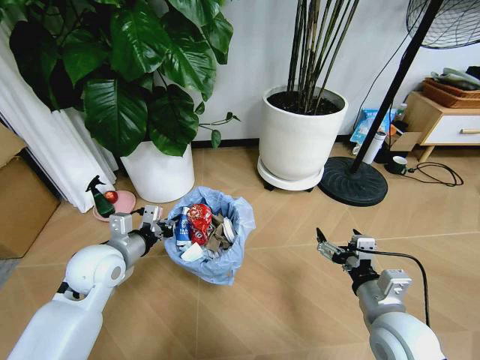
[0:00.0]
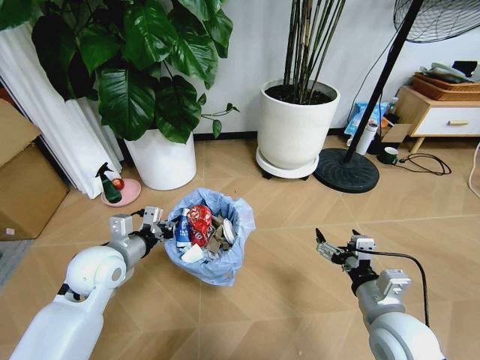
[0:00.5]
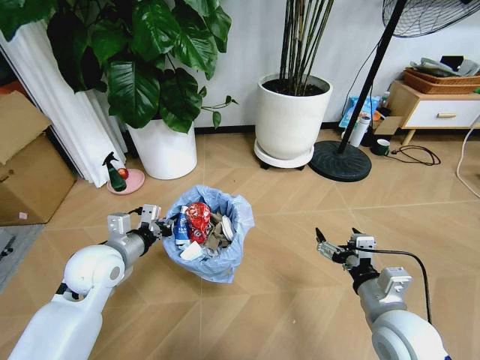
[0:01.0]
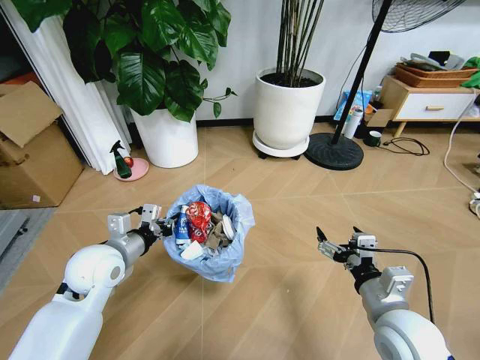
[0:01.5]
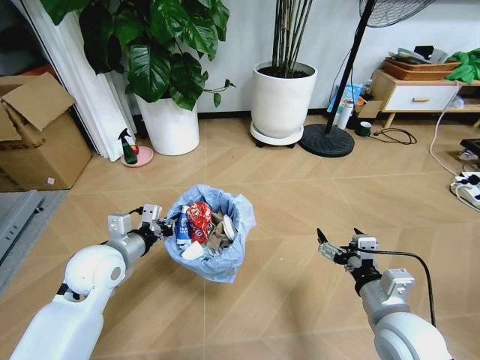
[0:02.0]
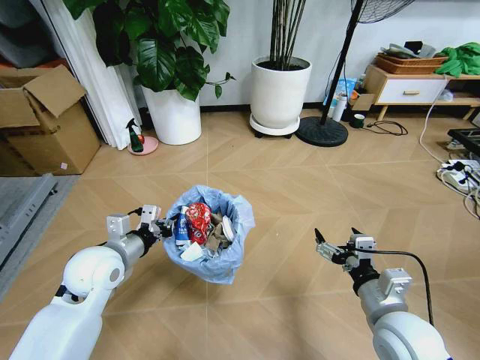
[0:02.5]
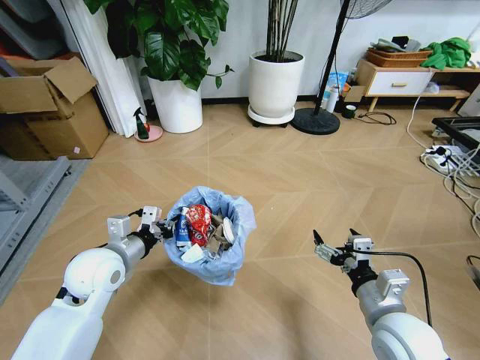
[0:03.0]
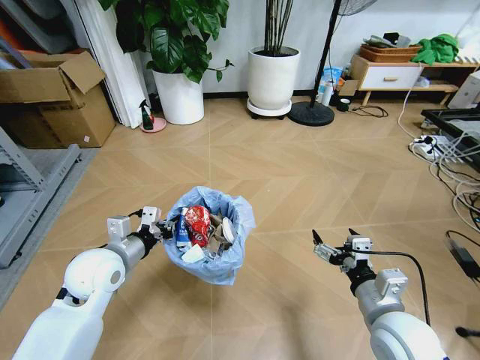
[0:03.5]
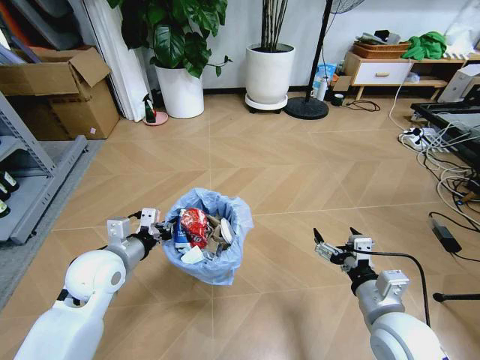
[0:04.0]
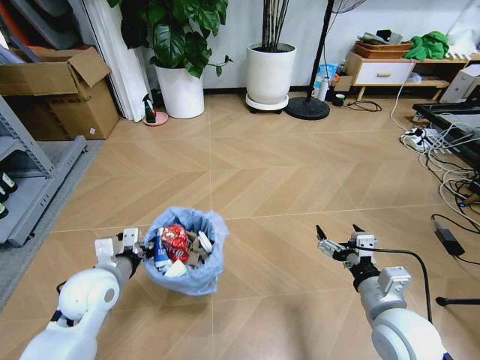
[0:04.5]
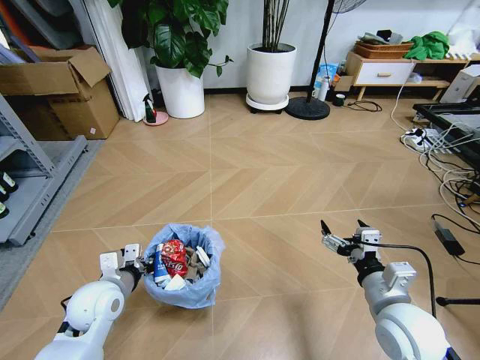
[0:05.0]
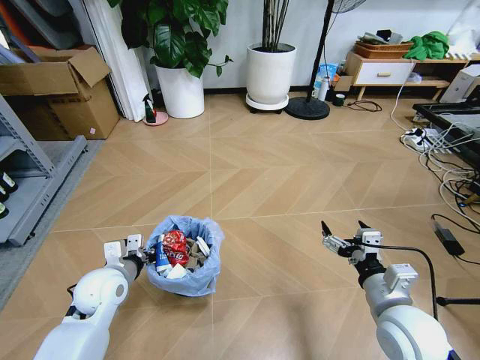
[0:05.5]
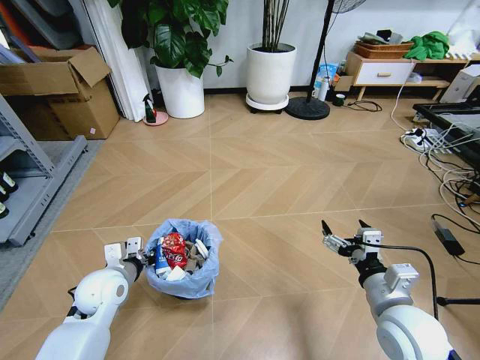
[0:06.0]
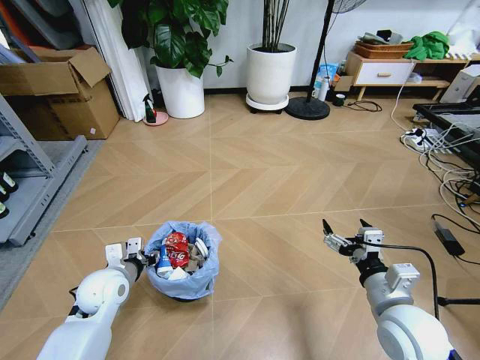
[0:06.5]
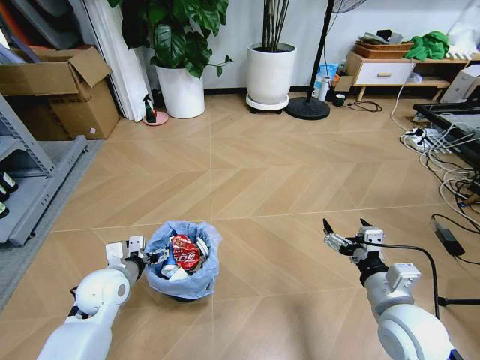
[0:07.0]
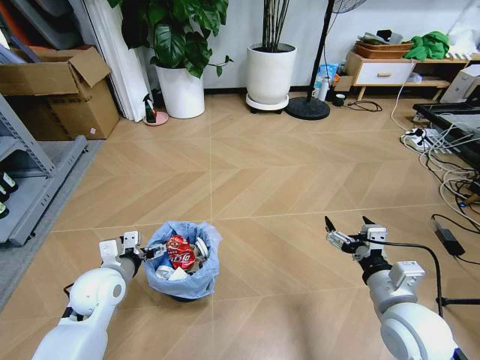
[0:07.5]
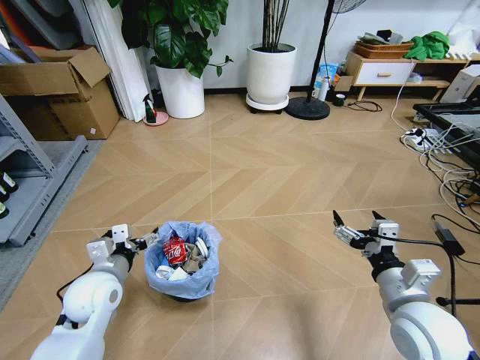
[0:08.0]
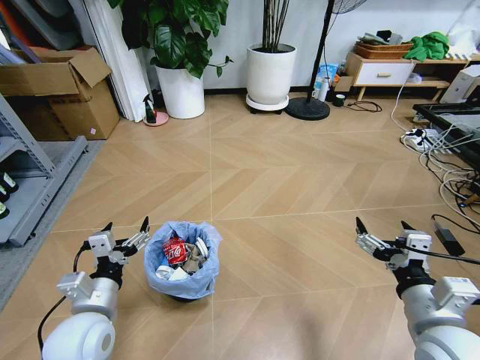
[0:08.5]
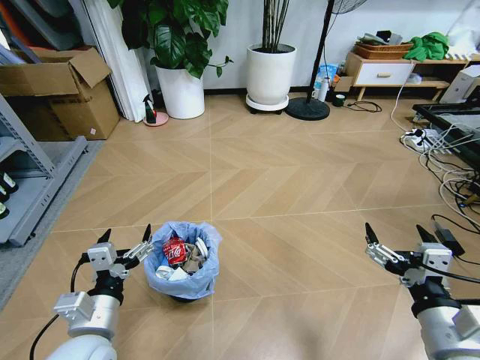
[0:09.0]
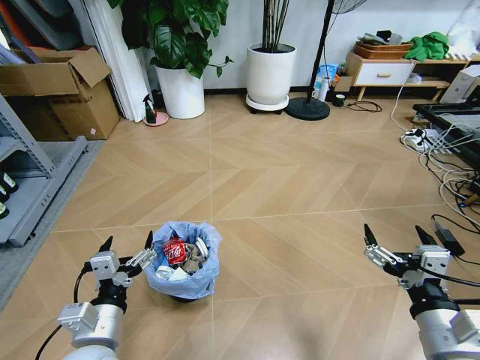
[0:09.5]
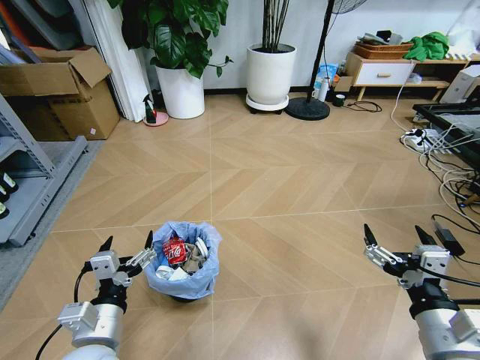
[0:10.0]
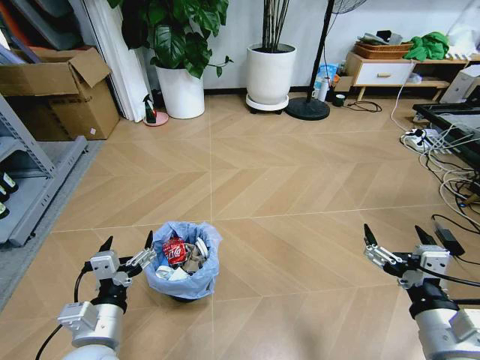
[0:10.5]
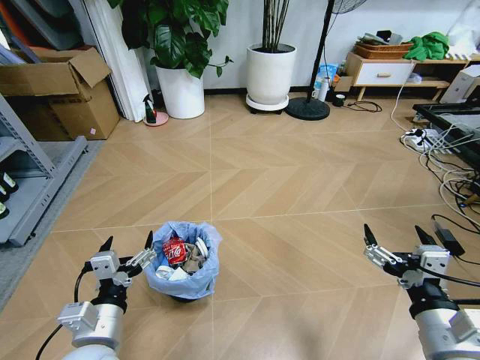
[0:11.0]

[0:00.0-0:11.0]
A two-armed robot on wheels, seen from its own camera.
Task of the whole recording: Pick up the trash bin and place the garbage on the floor into it.
0:03.5 to 0:05.5: The left gripper goes about 5 cm downward.
0:05.5 to 0:07.5: The left gripper opens its fingers.
0:07.5 to 0:09.0: The left gripper moves backward, about 15 cm. Meanwhile the right gripper moves backward and upward, some 10 cm.
0:09.0 to 0:11.0: The grippers move only a little.

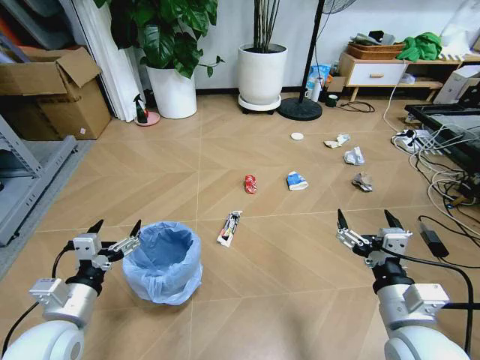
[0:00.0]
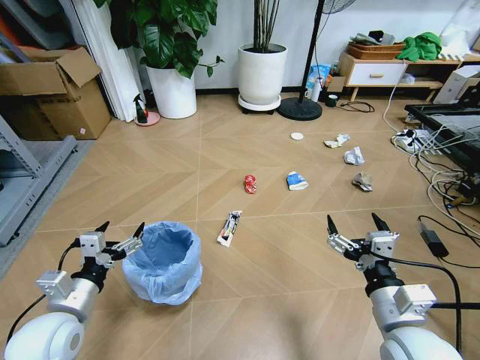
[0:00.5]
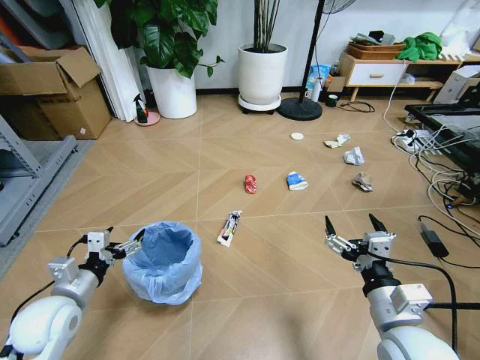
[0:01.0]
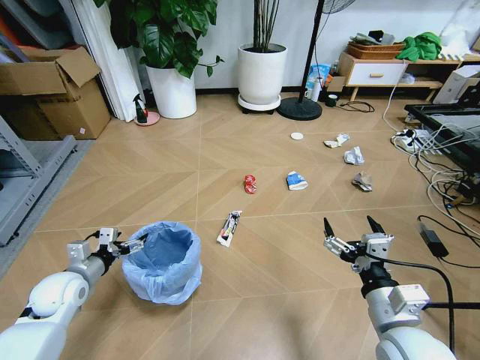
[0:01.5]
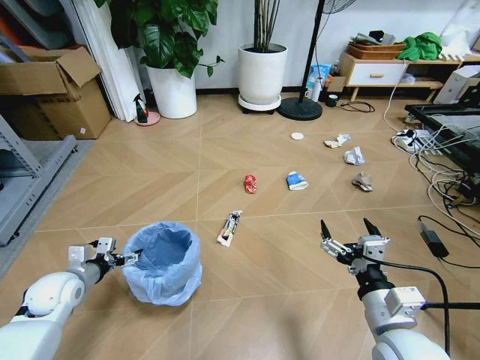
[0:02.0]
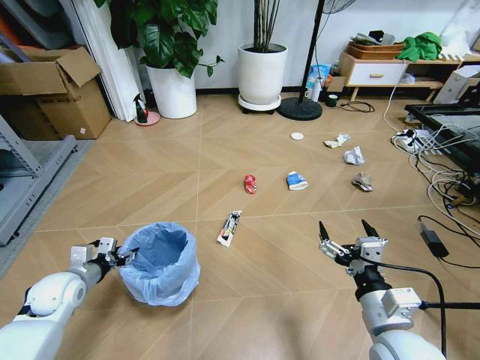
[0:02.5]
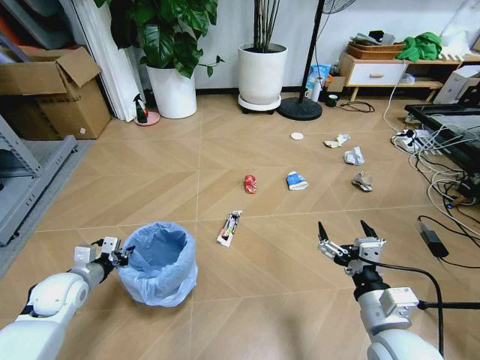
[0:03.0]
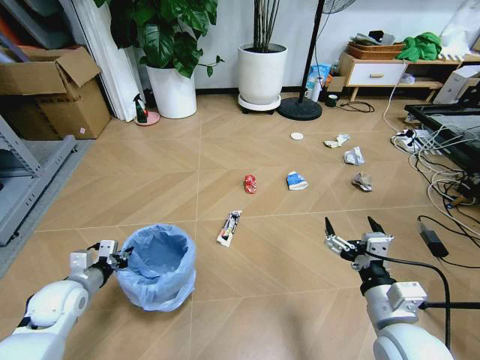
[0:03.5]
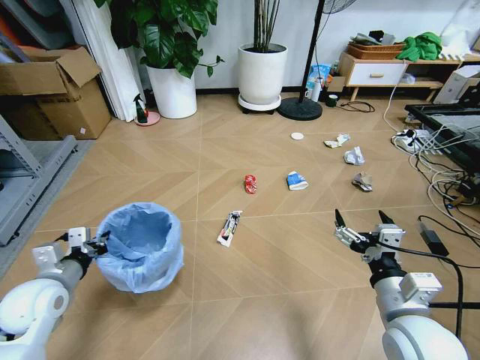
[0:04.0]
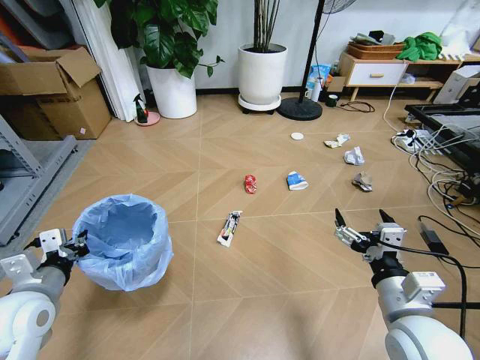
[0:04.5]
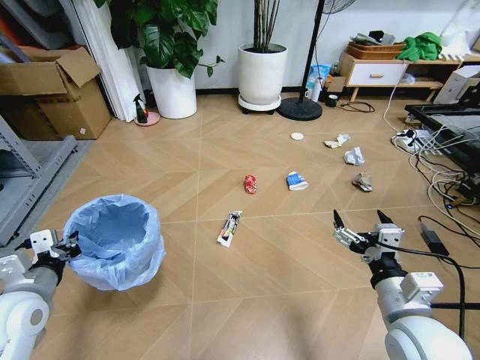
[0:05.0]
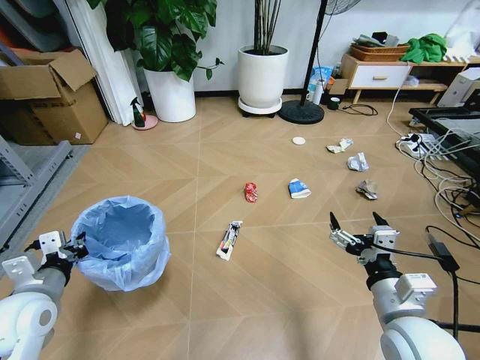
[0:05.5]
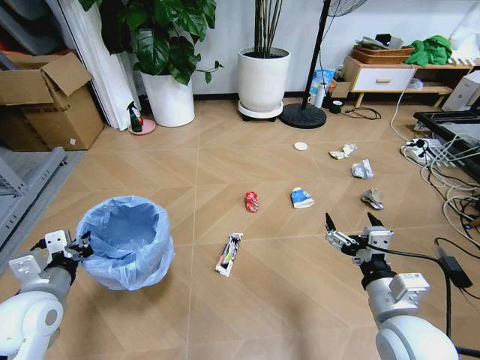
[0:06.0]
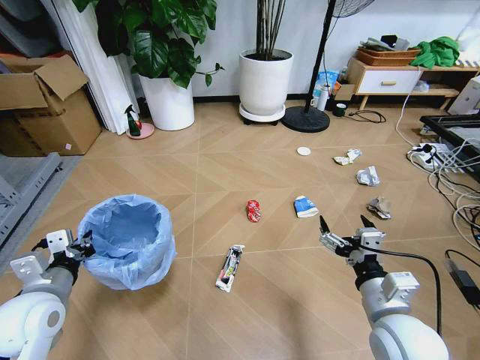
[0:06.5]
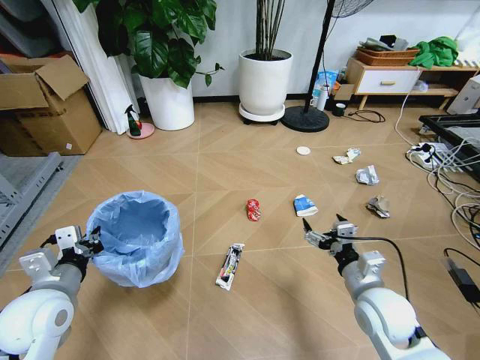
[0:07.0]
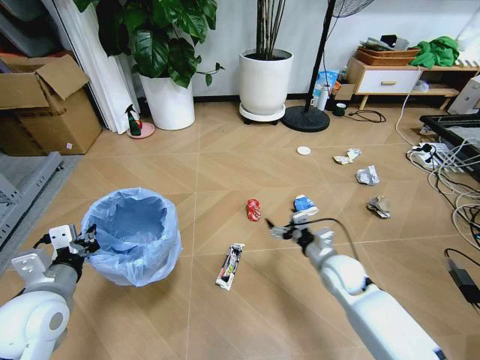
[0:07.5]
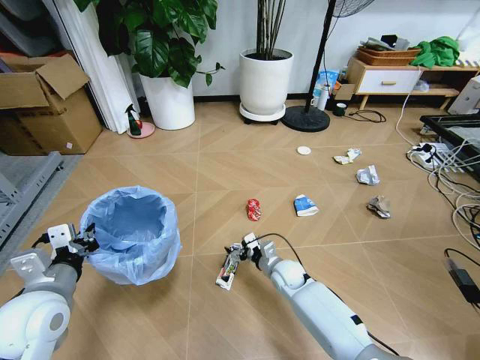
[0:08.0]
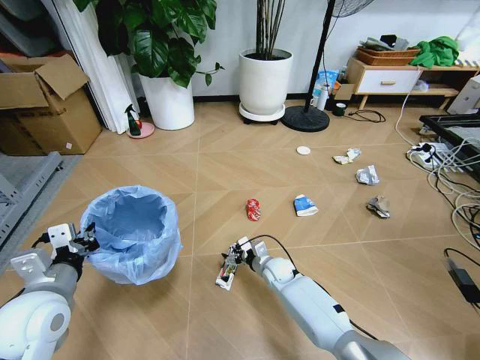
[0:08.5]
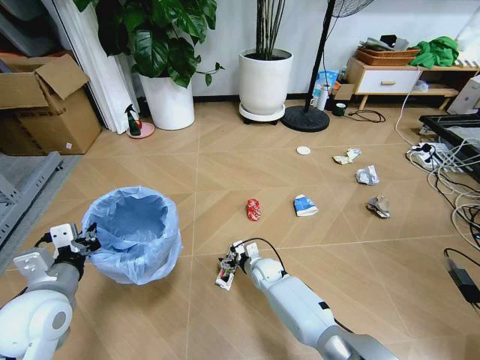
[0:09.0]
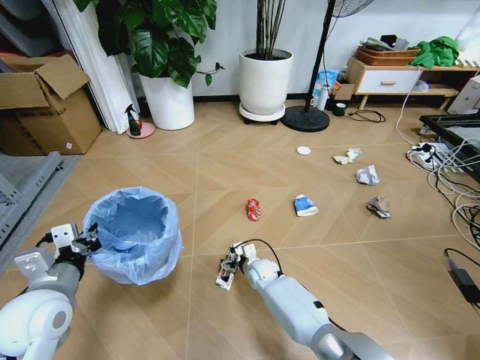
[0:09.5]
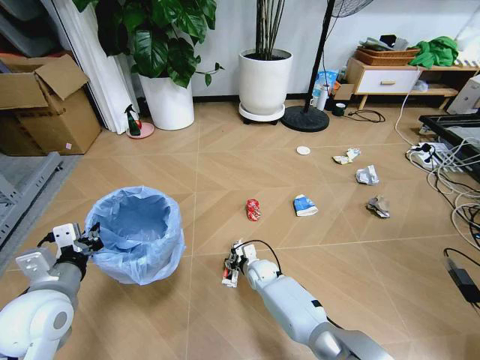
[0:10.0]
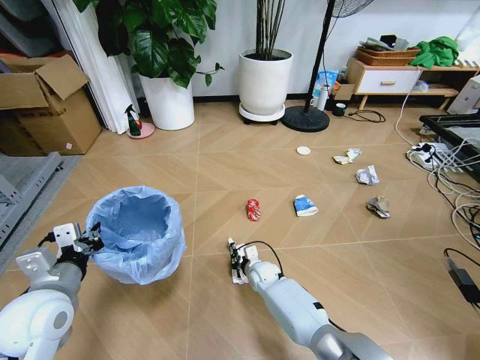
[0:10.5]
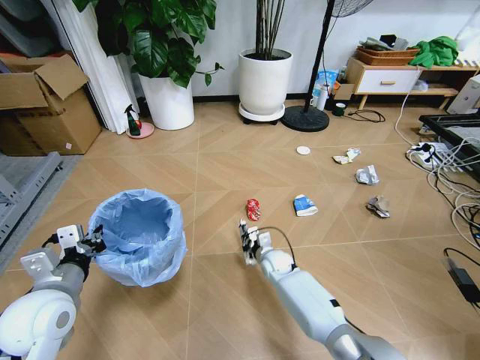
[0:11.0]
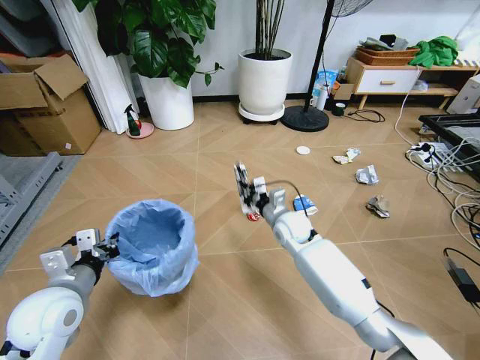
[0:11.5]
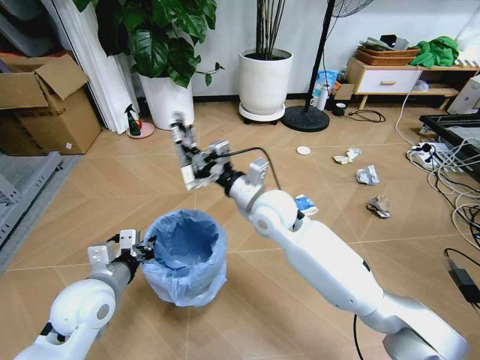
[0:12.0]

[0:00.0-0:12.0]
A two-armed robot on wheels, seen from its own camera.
Task of the whole recording: Pick up the trash bin and place the garbage on the floor into it.
0:02.0 to 0:04.0: The left gripper goes some 5 cm upward, and closes.
0:06.0 to 0:08.0: The right gripper is displaced forward, downward and to the left by about 35 cm.
0:08.0 to 0:10.0: The right gripper travels to the left and downward by roughly 10 cm.
0:10.0 to 0:12.0: The right gripper shifts some 35 cm upward, and closes its fingers. The left gripper shifts about 5 cm to the right.

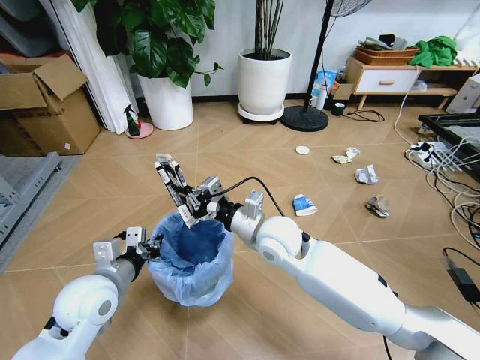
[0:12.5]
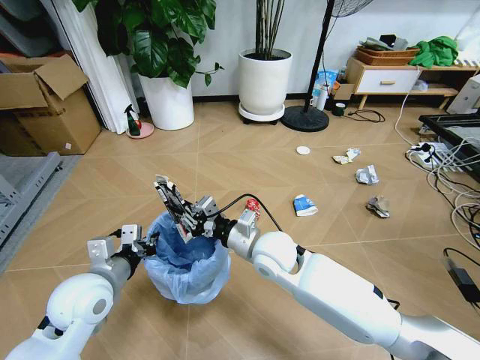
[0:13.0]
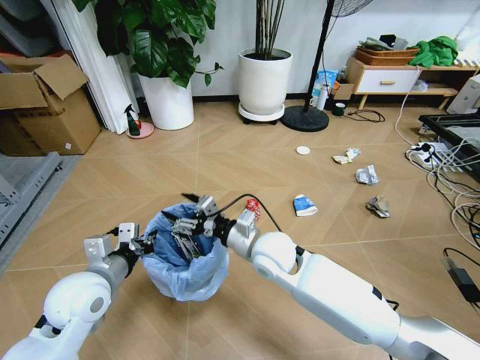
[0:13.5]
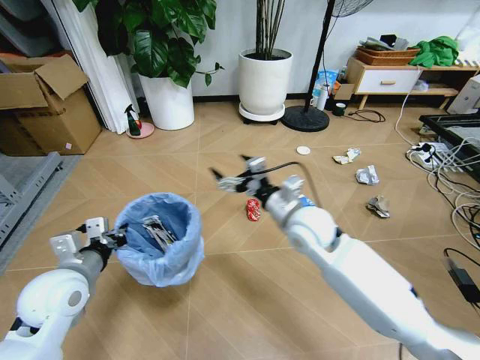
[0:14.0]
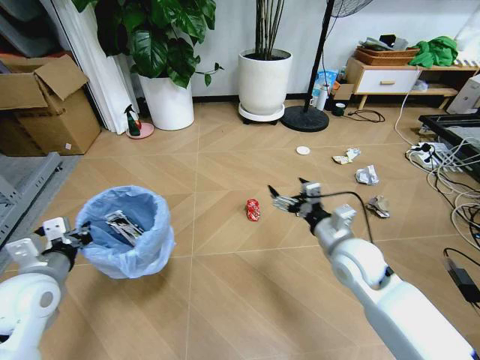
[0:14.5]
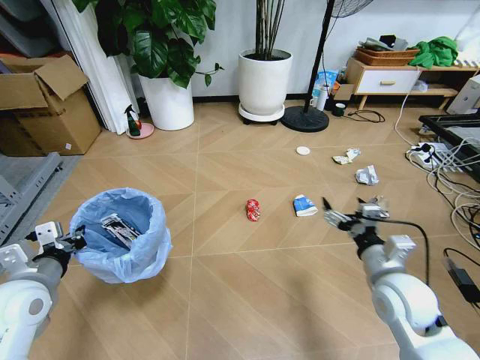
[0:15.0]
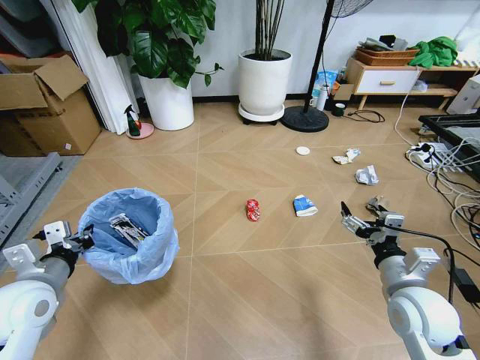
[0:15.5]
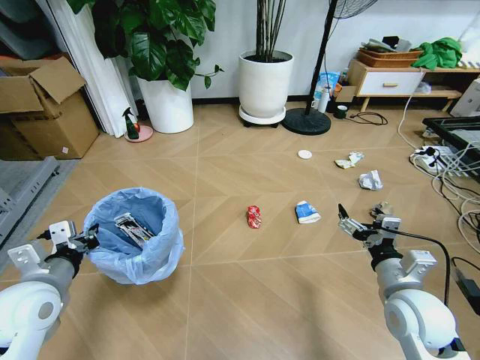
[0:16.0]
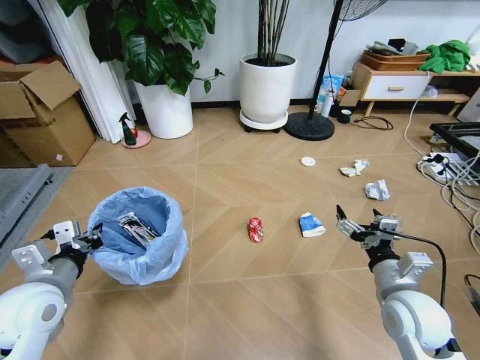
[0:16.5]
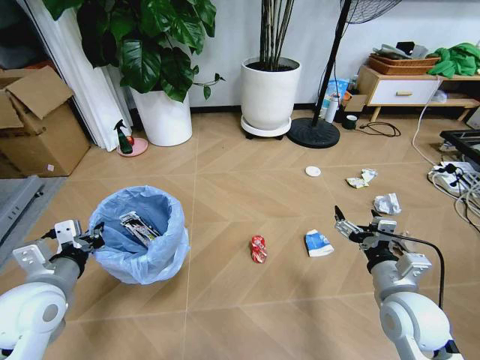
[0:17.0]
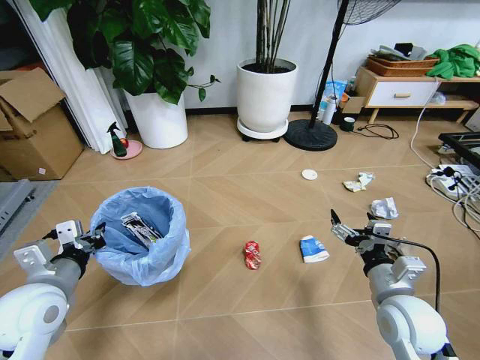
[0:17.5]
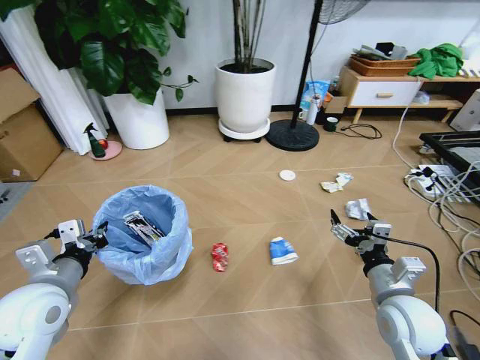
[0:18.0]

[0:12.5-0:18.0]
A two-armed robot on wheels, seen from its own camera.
Task of the whole recording: Pick up the trash bin and place the garbage on the floor into it.
0:12.5 to 0:14.5: The right gripper shifts some 15 cm to the right, and opens its fingers. Meanwhile the left gripper moves to the left, some 10 cm.
0:14.5 to 0:16.0: The right gripper is displaced backward and to the right by approximately 10 cm.
